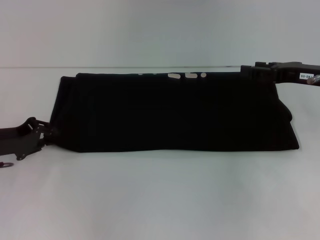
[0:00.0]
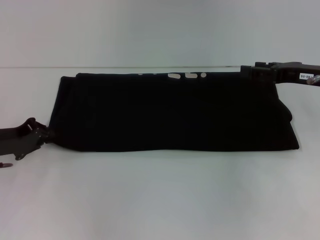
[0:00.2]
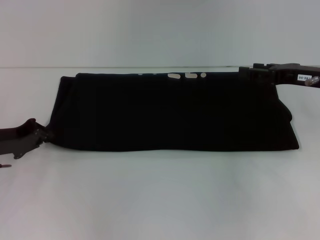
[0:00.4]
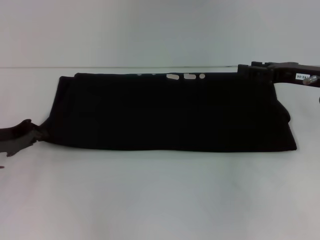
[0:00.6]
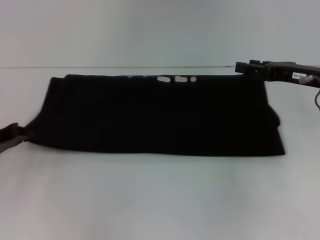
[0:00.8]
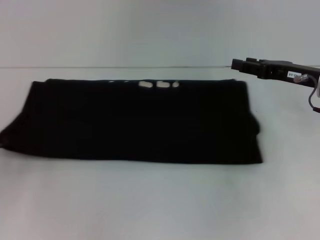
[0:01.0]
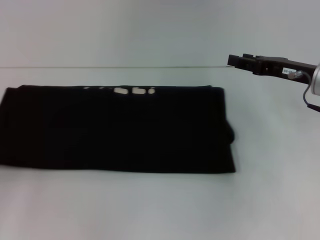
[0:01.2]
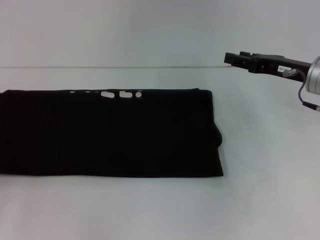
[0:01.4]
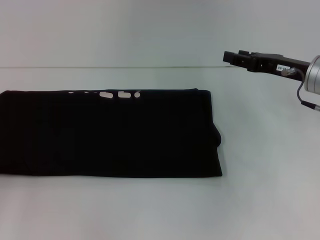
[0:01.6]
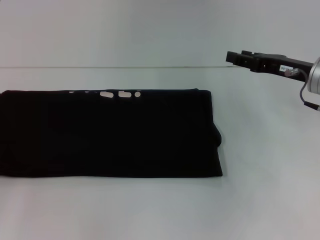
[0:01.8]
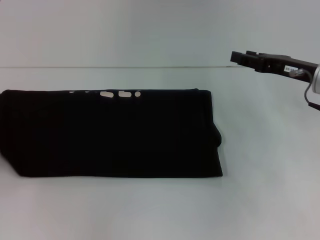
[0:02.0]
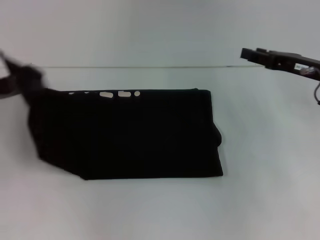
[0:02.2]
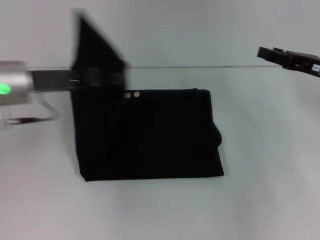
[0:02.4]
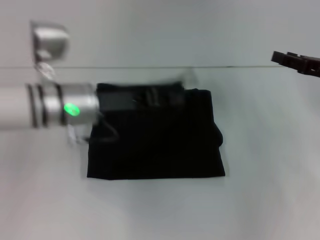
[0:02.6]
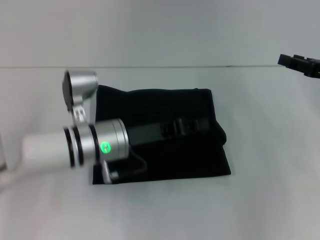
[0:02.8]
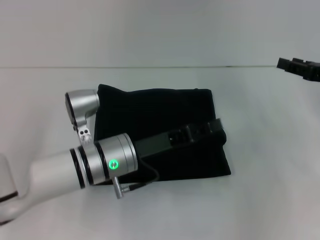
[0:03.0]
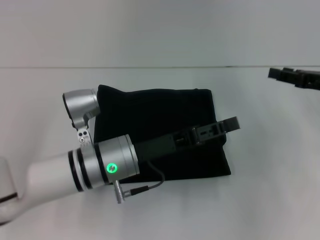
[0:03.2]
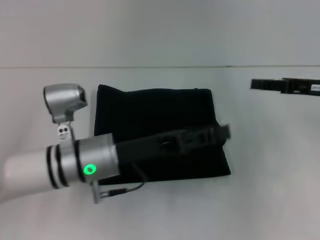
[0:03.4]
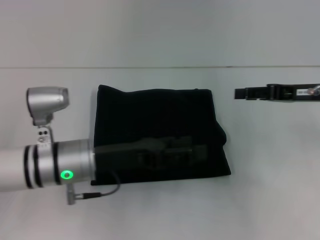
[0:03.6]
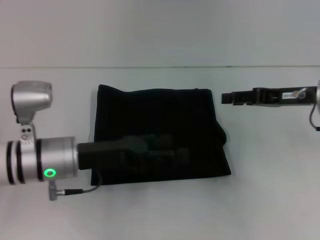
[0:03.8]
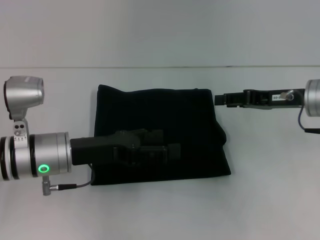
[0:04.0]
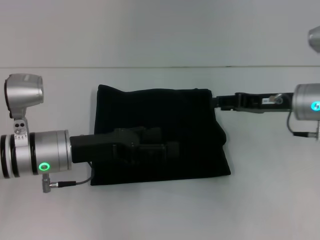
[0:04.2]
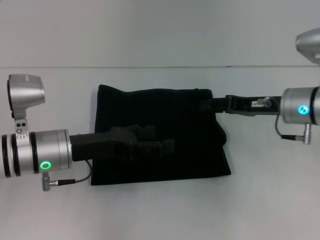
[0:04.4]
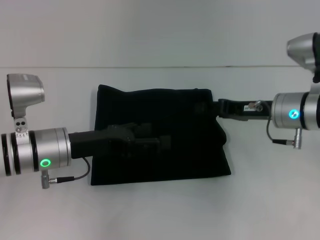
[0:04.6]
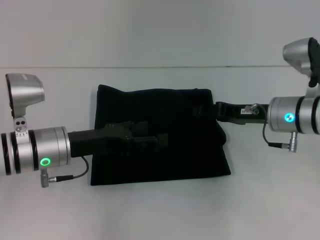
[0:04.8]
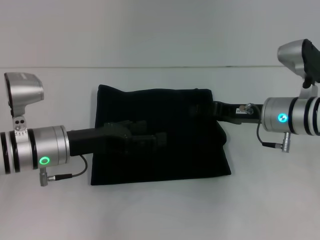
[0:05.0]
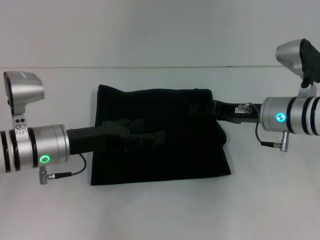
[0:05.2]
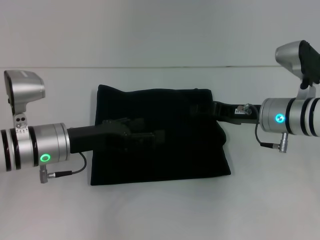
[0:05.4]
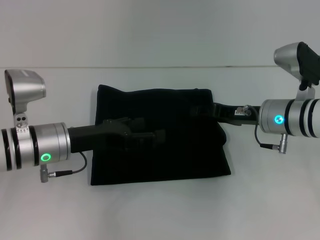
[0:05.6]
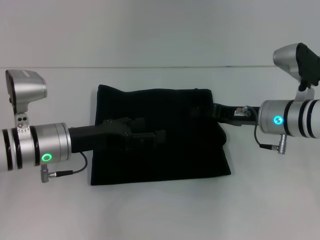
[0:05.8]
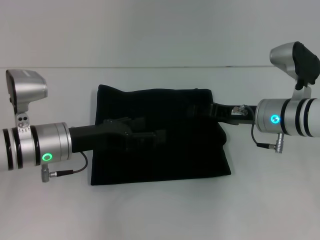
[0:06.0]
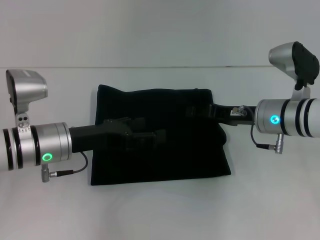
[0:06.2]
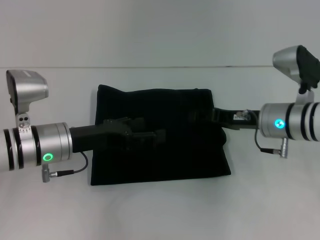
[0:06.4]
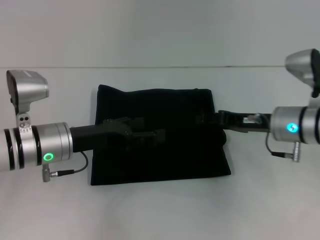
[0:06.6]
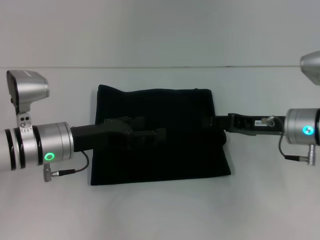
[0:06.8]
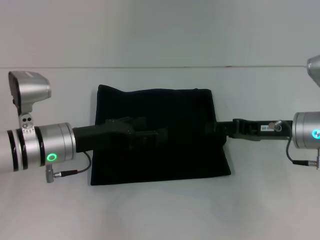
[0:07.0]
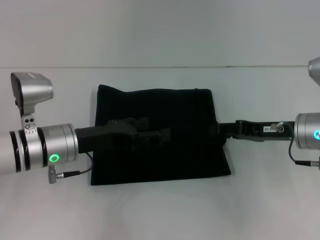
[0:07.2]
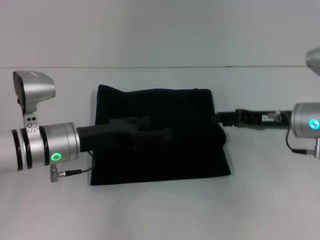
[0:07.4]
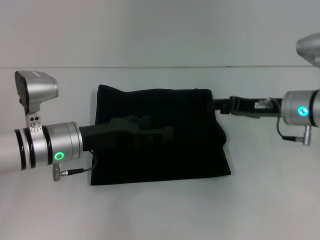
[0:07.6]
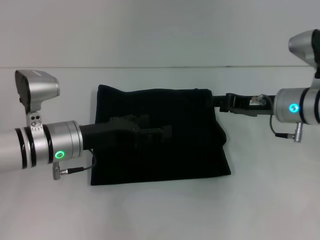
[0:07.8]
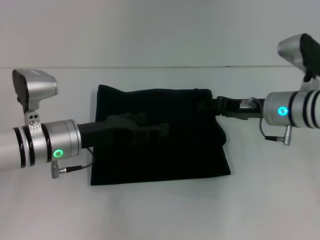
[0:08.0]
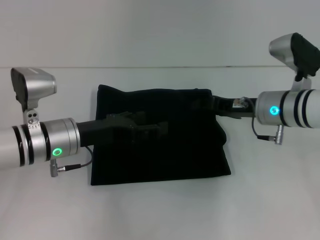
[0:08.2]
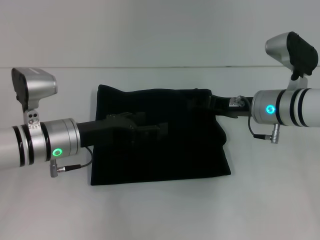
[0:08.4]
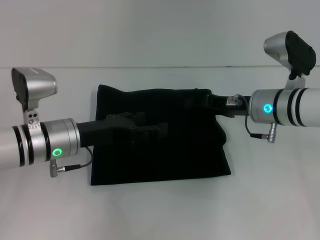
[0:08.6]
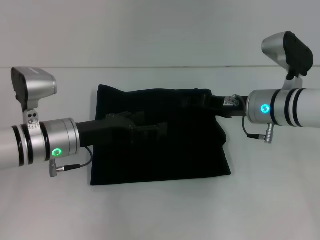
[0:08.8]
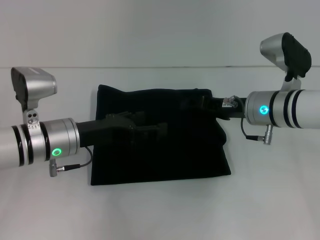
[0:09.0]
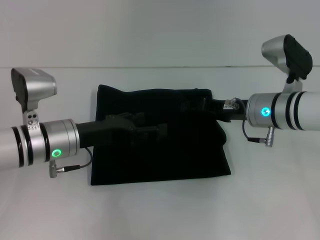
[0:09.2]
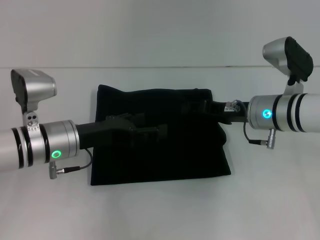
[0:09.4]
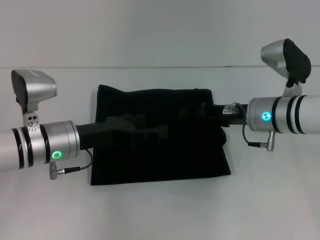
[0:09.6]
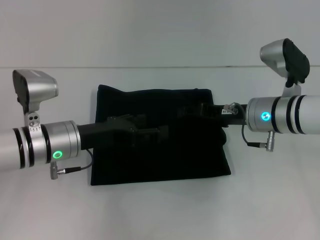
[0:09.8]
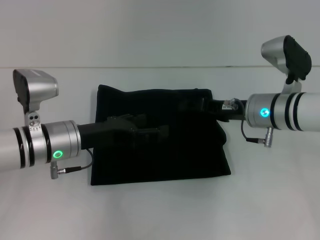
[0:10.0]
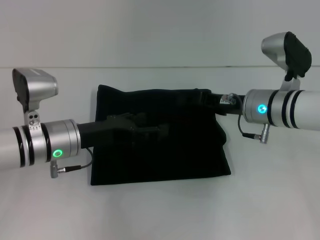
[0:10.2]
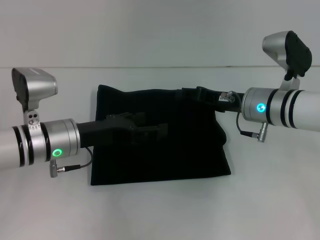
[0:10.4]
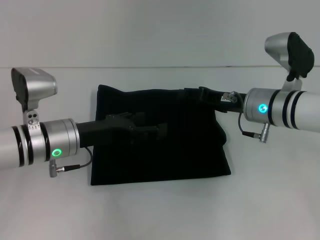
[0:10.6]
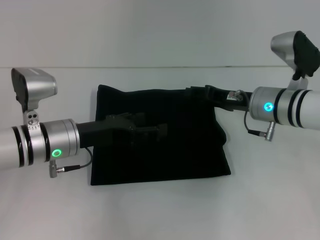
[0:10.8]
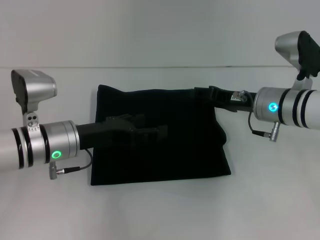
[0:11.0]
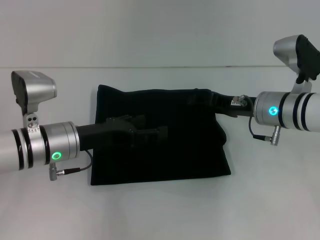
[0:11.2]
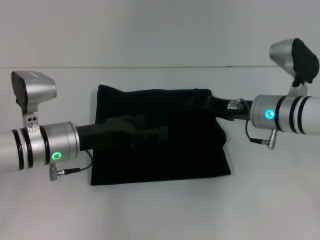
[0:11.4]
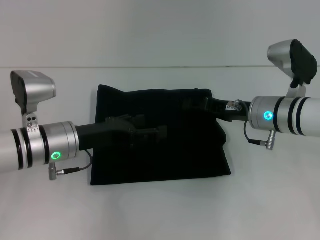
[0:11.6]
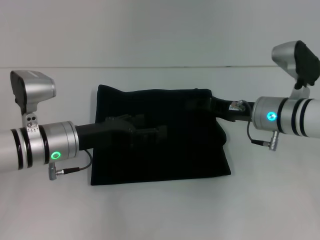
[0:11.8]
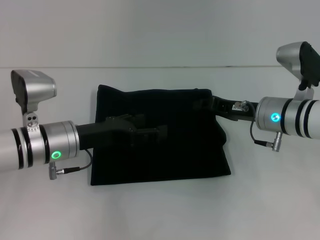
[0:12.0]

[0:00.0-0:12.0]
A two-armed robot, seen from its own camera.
Step, 0:00.0 to 0:03.0: Fold the clothes with your left hand.
0:00.0 to 0:01.6: The left gripper goes some 15 cm to the left and backward, and closes.
0:01.6 to 0:03.0: The left gripper travels to the right by approximately 30 cm, while the right gripper heads to the right, covering roughly 10 cm.
0:03.0 to 0:04.4: The grippers both shift to the left by some 10 cm. The left gripper opens up.
0:04.4 to 0:07.6: The grippers stay close to where they were, moving slightly.
0:07.6 to 0:09.0: The right gripper moves to the left, about 5 cm.
0:09.0 to 0:12.0: The grippers stay close to where they were, moving slightly.

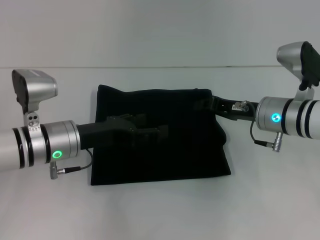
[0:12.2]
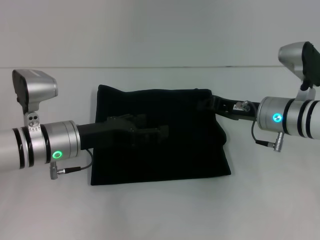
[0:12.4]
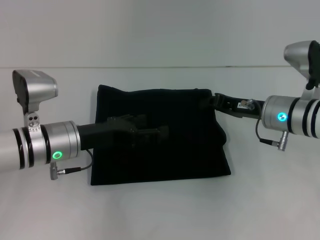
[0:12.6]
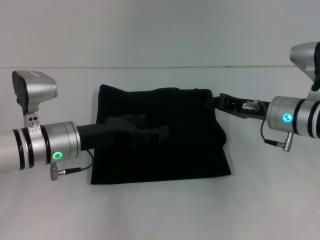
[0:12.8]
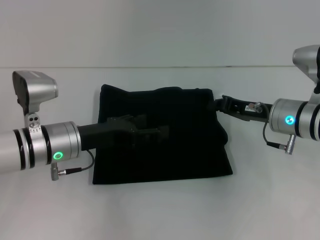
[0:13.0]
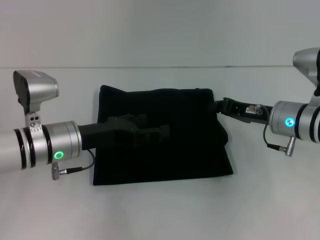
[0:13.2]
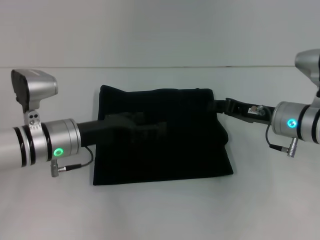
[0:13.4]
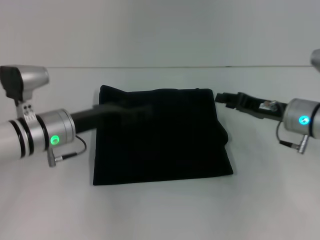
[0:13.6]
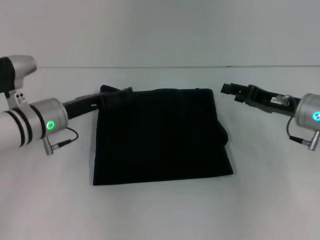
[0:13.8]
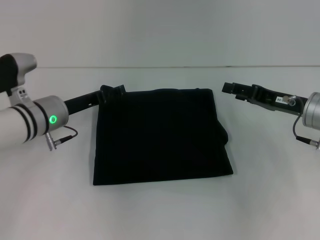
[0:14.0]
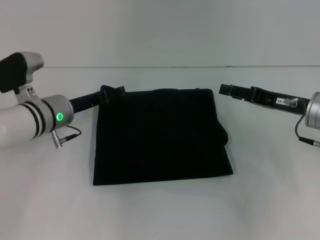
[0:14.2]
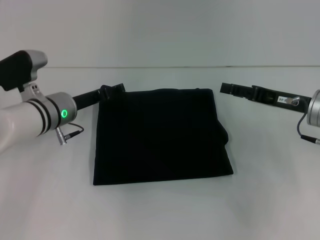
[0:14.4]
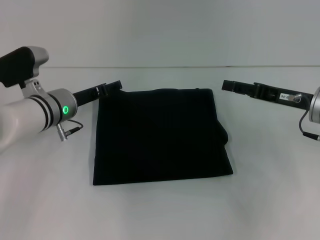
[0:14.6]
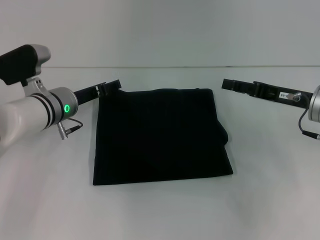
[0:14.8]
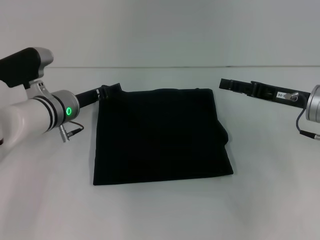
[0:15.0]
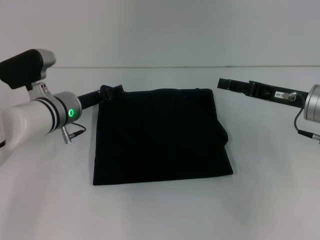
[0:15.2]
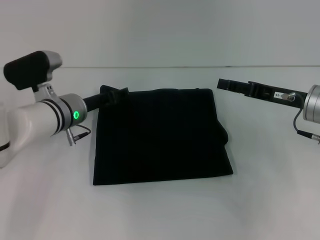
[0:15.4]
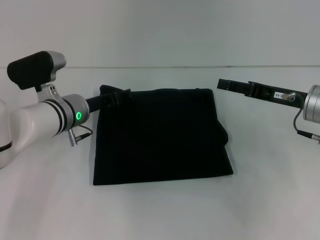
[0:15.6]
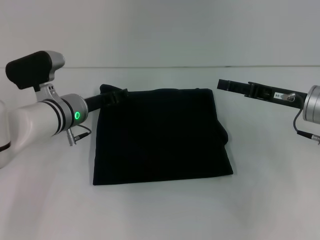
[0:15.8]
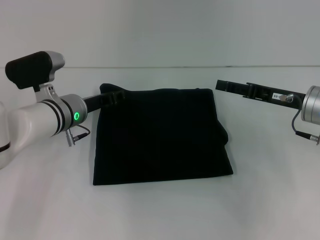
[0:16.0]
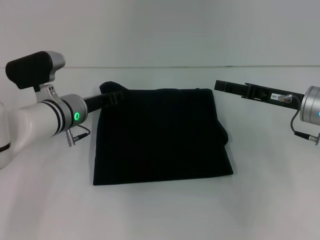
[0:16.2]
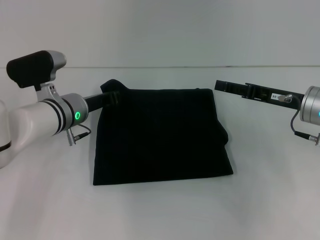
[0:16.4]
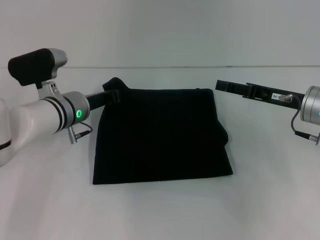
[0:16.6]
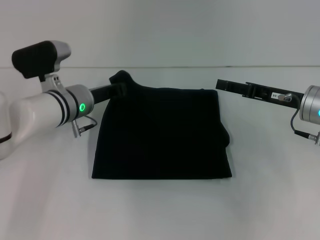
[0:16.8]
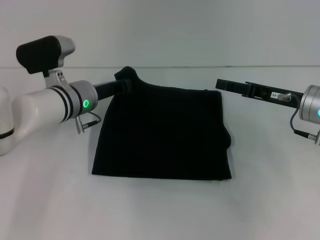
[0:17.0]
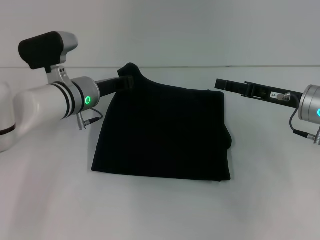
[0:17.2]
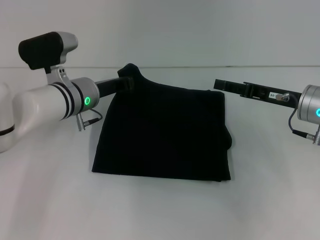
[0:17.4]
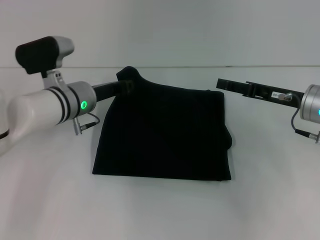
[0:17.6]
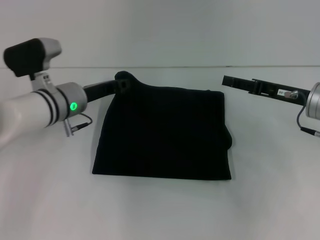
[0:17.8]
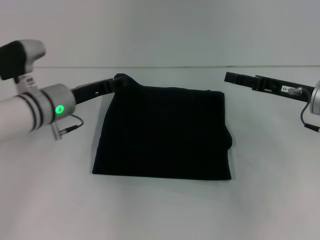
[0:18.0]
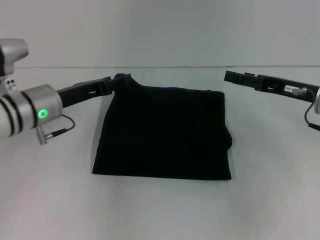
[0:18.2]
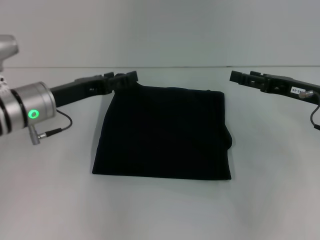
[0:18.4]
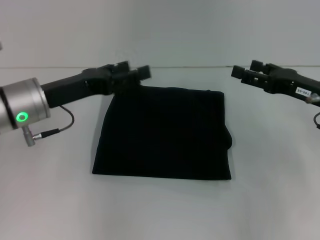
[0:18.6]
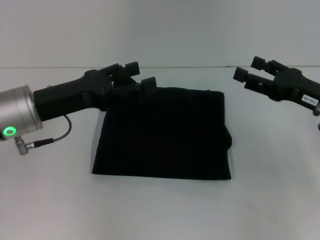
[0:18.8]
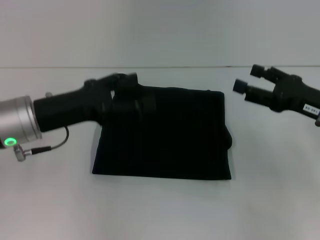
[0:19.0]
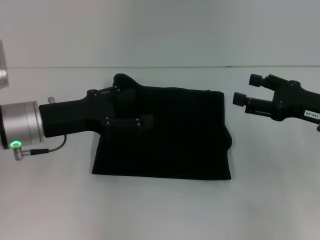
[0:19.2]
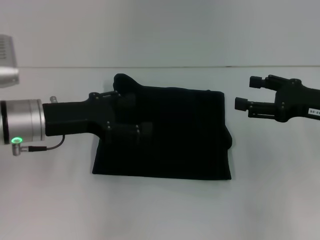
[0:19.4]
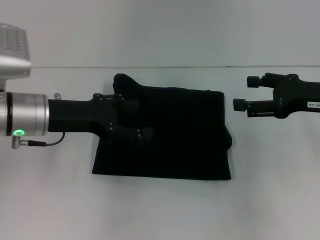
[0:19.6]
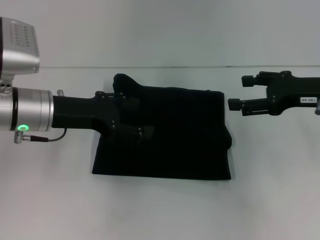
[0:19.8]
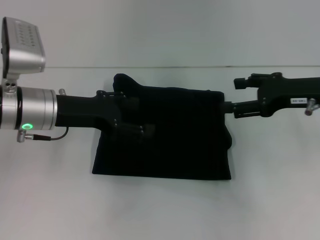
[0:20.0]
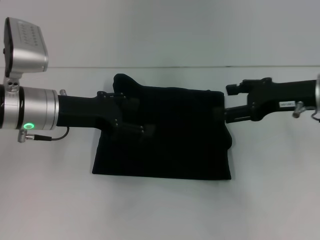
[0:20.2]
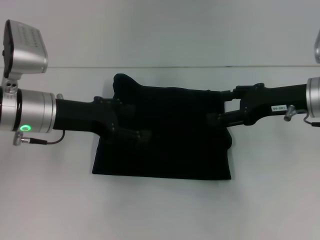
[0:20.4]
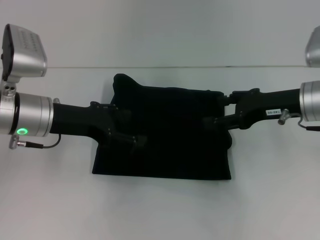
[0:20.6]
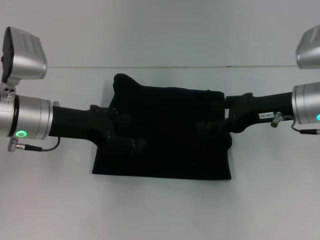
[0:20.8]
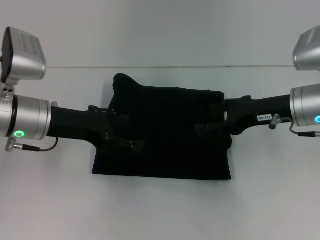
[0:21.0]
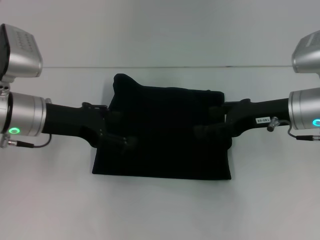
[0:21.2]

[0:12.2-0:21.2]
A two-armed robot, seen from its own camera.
0:12.2 to 0:13.8: The right gripper goes approximately 5 cm to the right.
0:13.8 to 0:15.2: The grippers stay close to where they were, moving slightly.
0:15.2 to 0:16.6: The left gripper closes up.
0:16.6 to 0:18.2: The left gripper ends up roughly 5 cm from where it was, and opens.
0:18.2 to 0:19.8: The right gripper ends up approximately 5 cm from where it was. The left gripper opens its fingers.
0:19.8 to 0:21.2: The right gripper travels to the left by roughly 5 cm.

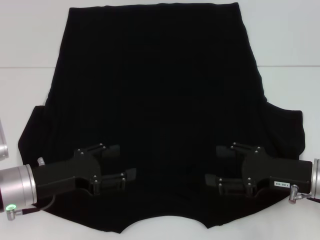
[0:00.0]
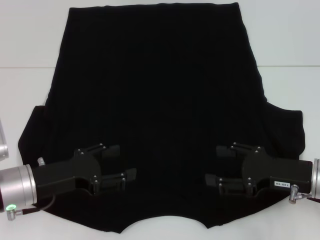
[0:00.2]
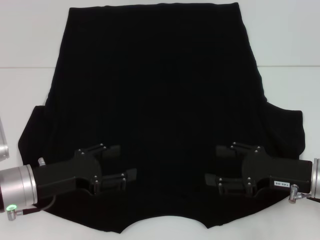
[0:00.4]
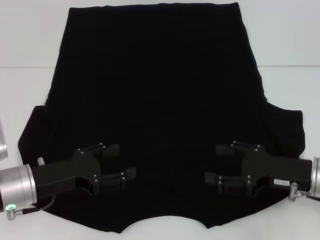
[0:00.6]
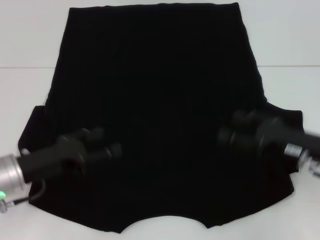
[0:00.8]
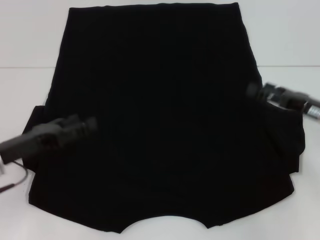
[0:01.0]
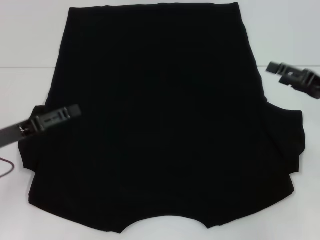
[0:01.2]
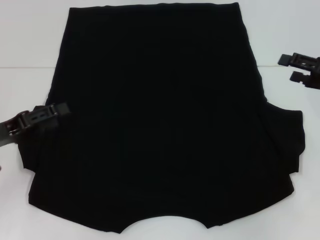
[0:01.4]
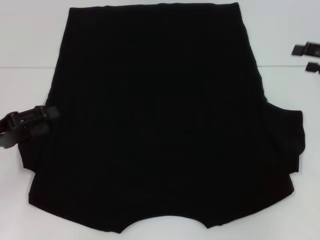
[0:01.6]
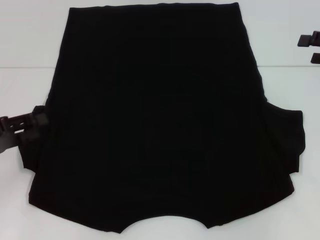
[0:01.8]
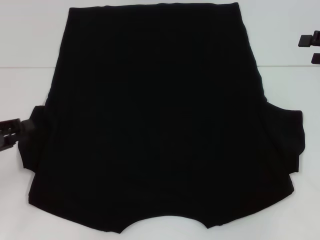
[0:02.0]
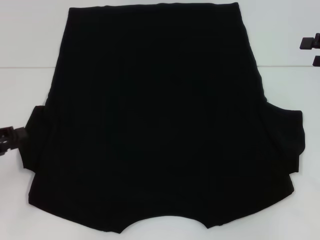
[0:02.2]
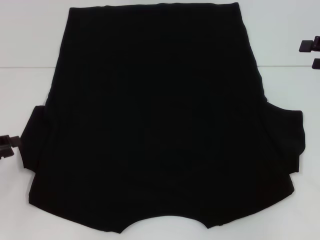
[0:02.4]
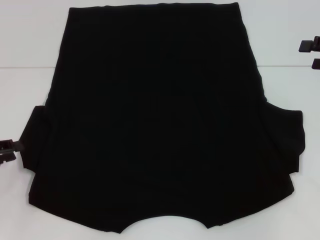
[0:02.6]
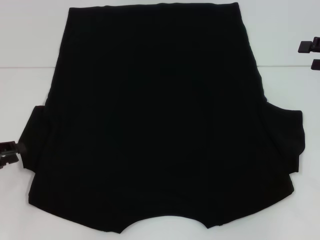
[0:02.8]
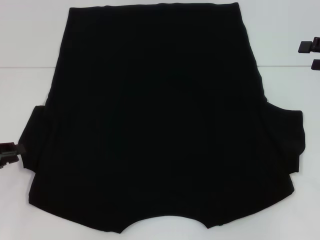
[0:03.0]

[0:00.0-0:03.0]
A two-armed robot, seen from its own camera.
0:00.0 to 0:01.6: The left gripper shifts about 10 cm to the left and upward. The right gripper is displaced upward, to the right and forward by about 20 cm.
0:01.6 to 0:03.0: The left gripper closes up.
